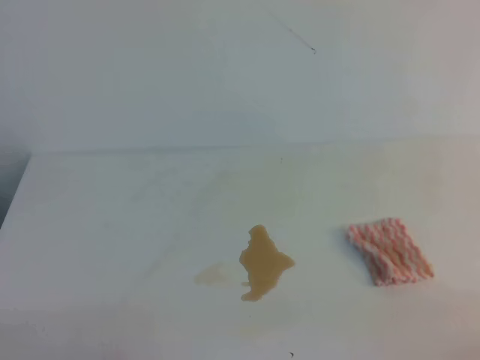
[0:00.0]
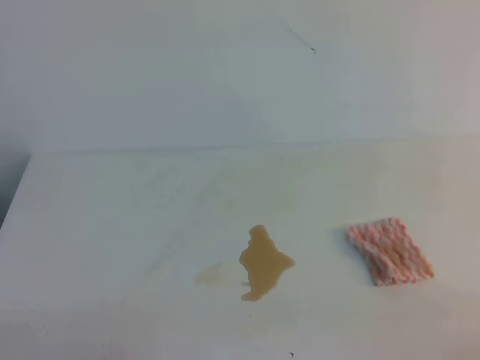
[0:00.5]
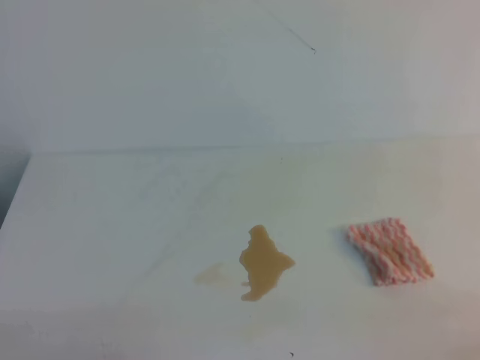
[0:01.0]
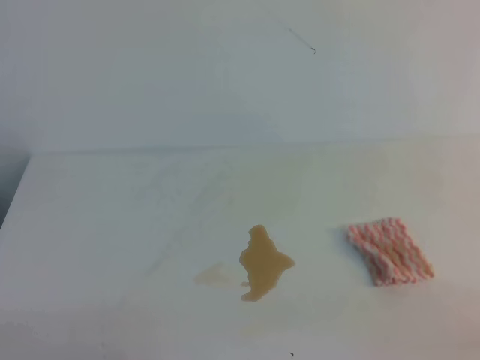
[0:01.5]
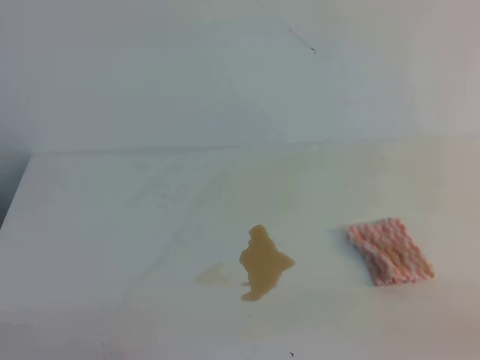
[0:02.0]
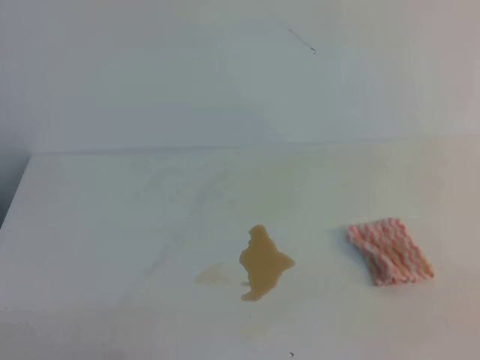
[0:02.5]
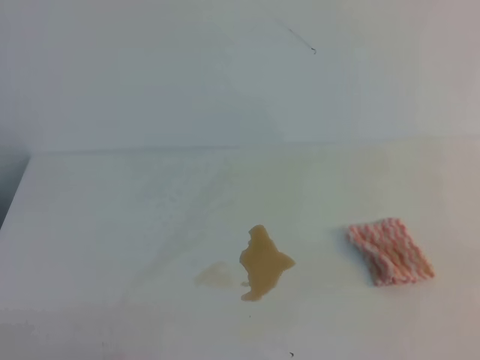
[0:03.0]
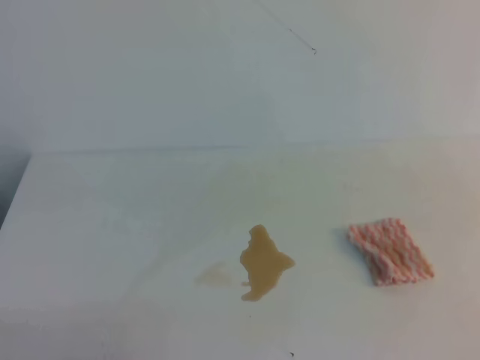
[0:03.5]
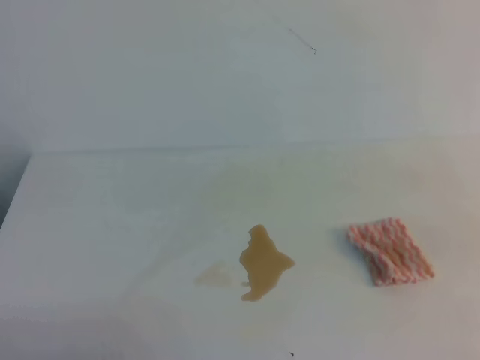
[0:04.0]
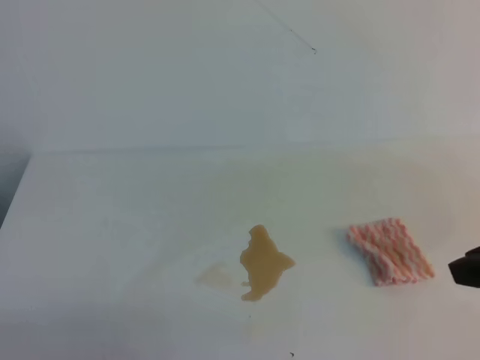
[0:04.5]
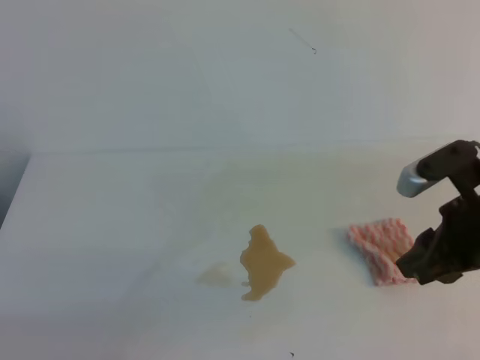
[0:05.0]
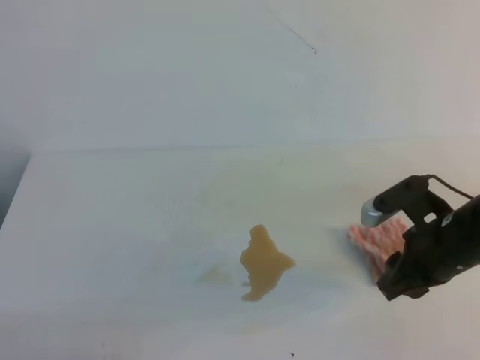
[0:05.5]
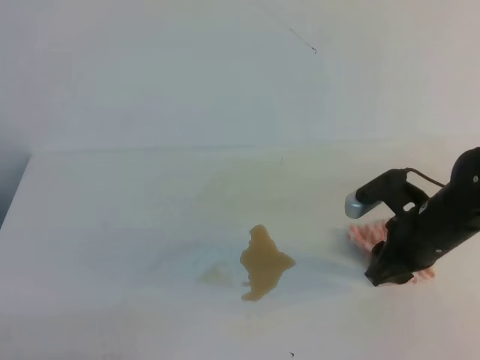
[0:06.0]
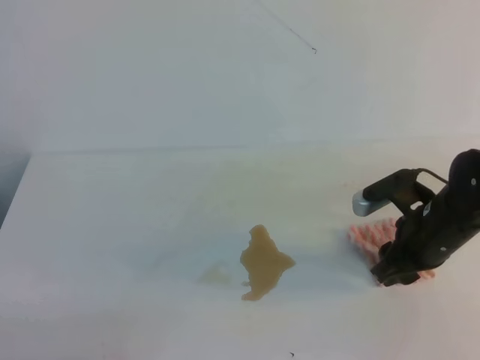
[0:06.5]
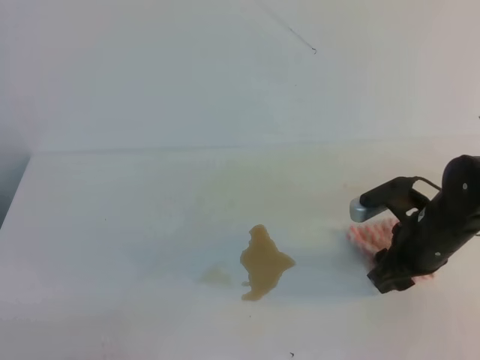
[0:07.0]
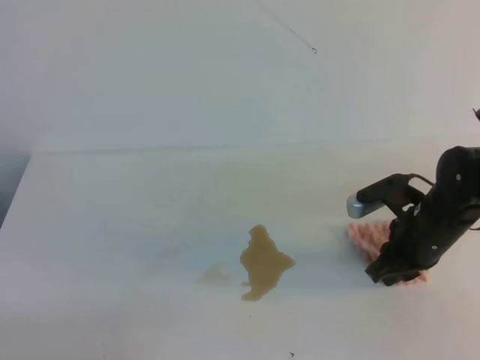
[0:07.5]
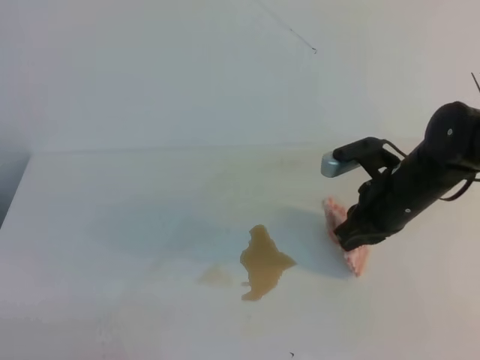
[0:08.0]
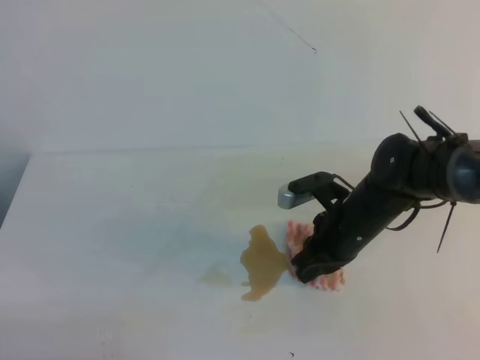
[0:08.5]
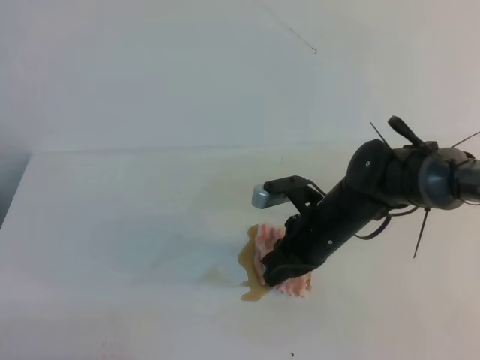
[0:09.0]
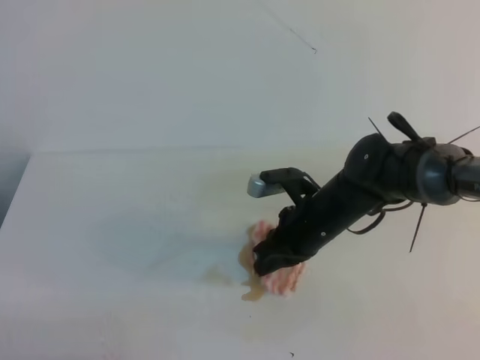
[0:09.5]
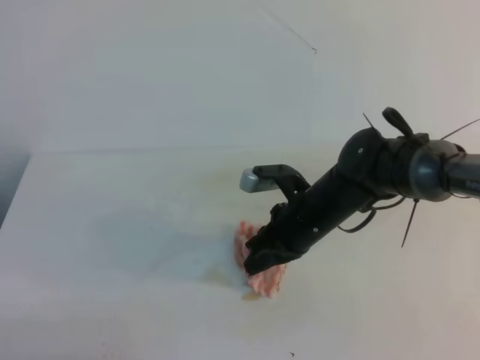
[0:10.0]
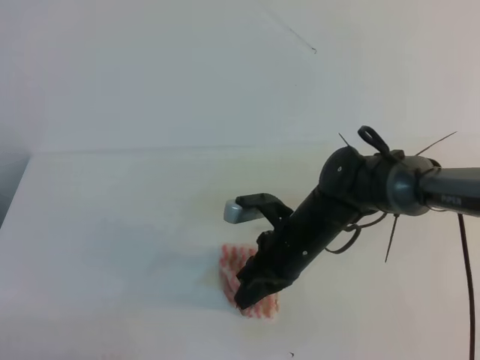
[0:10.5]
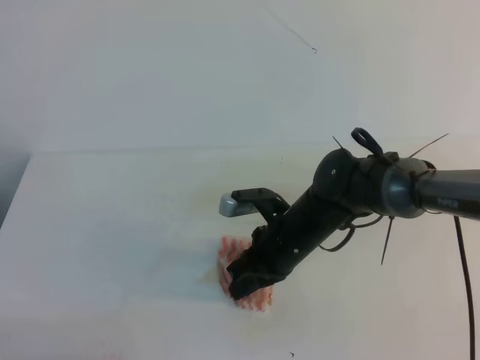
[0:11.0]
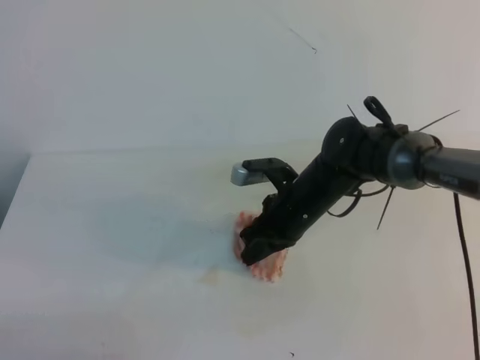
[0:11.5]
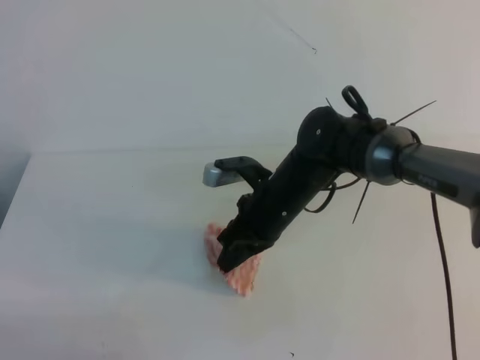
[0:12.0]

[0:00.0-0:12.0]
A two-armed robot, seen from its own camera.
0:04.0 to 0:06.0: The right gripper goes roughly 25 cm forward, downward and to the left, and opens its fingers.
0:06.0 to 0:08.0: The right gripper closes.
0:08.0 to 0:10.0: The right gripper heads to the left, covering approximately 10 cm.
0:10.0 to 0:12.0: There are only small adjustments of the grippers.

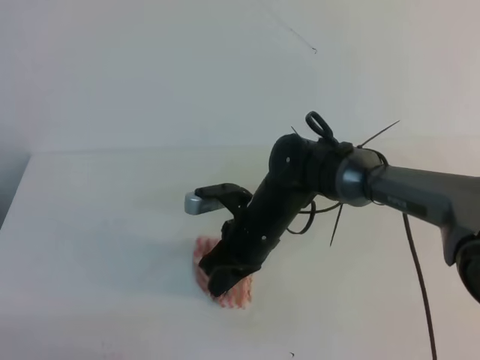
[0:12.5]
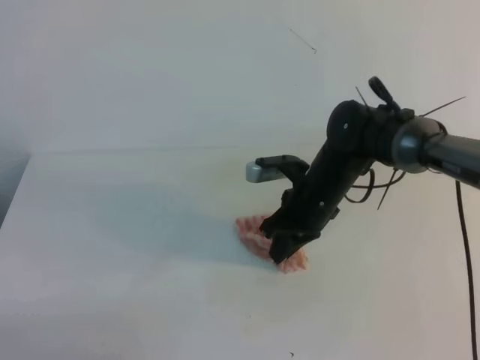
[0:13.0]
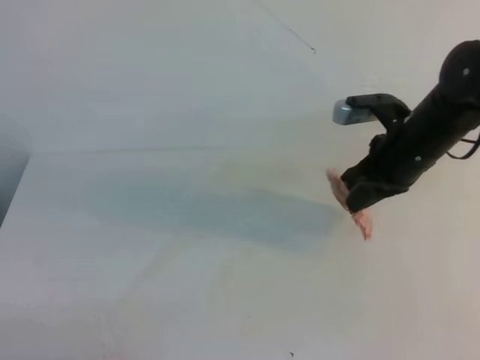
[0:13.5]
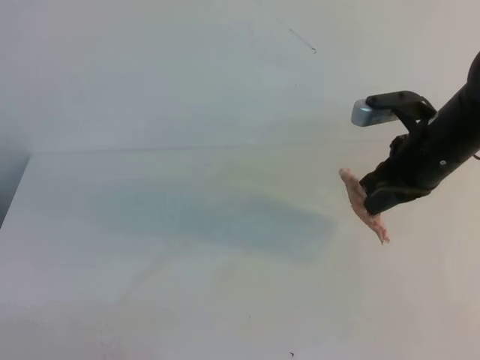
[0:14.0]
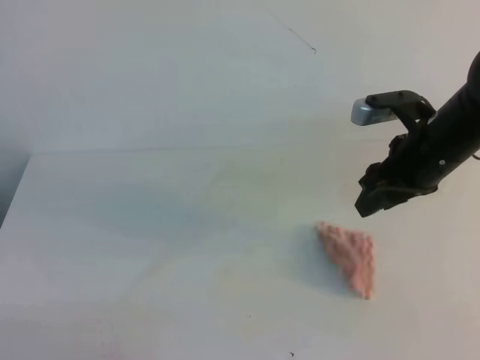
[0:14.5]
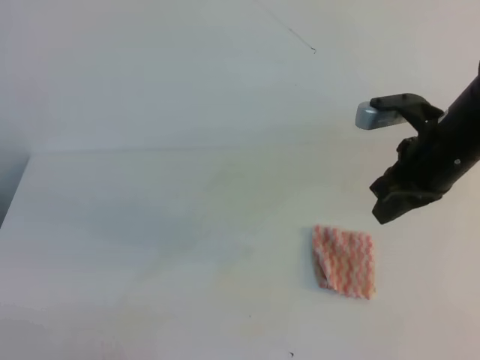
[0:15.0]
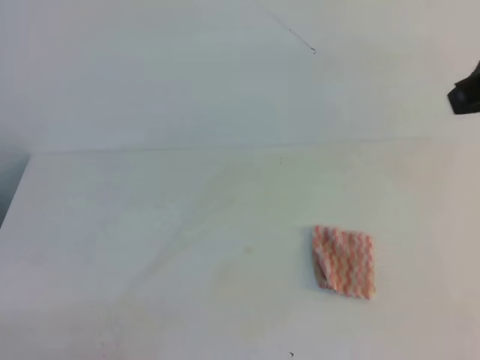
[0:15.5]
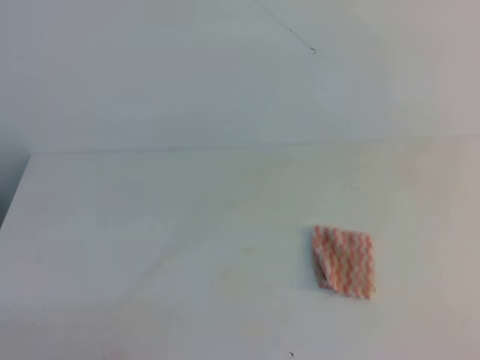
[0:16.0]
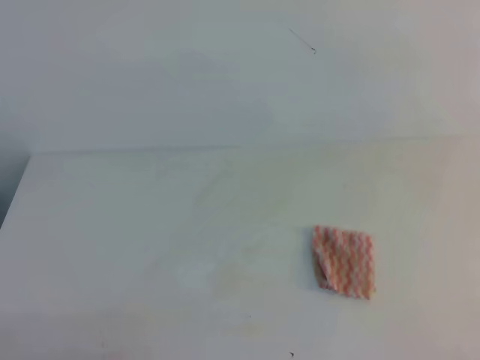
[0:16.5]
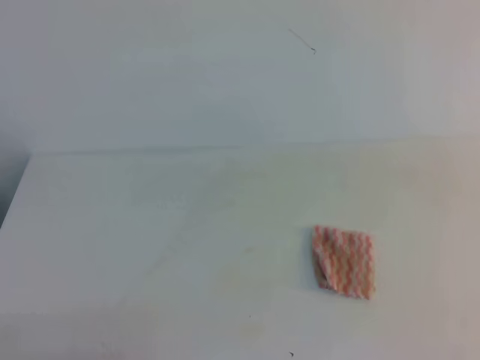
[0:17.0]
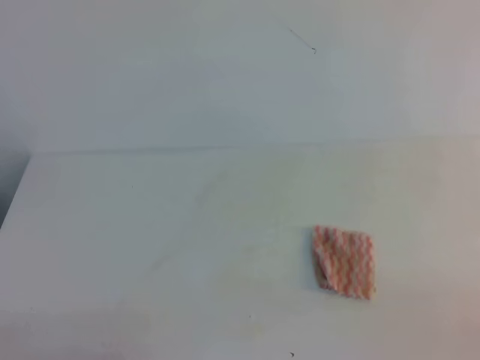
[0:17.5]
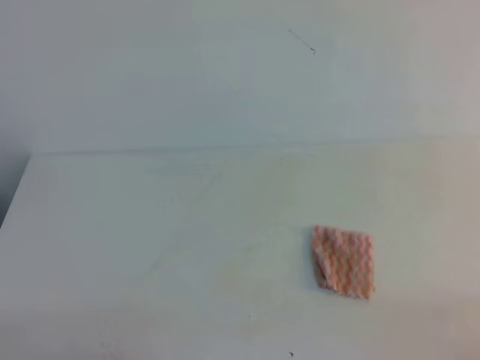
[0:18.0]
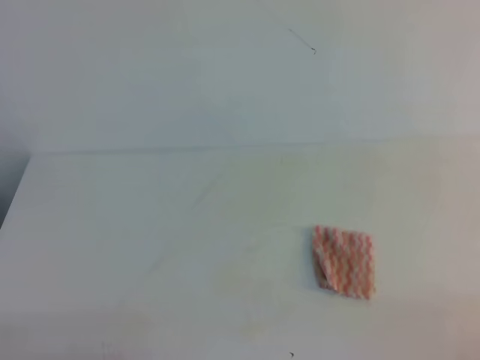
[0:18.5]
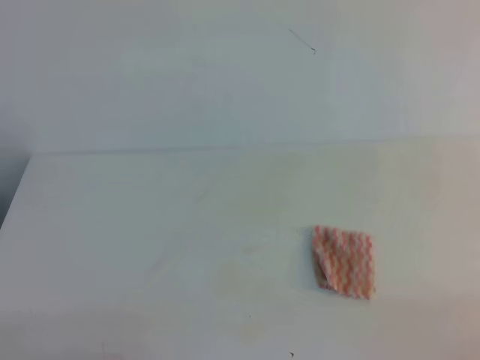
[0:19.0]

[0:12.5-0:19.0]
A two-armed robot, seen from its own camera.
0:12.5 to 0:14.5: The right gripper goes some 20 cm to the right and upward, and opens its fingers.
0:14.5 to 0:17.0: The right gripper is displaced backward and upward by roughly 35 cm, and closes.

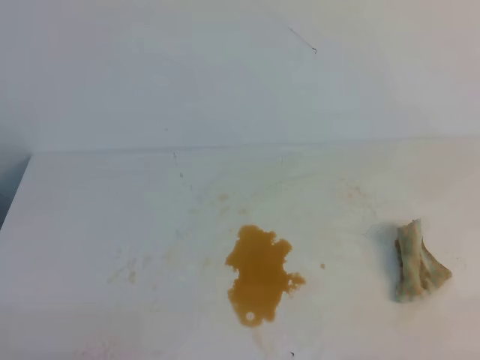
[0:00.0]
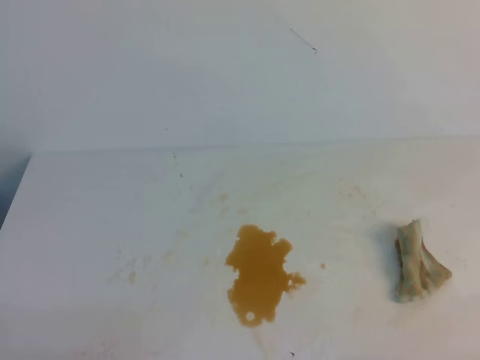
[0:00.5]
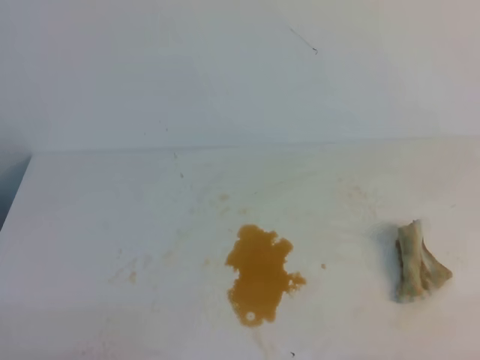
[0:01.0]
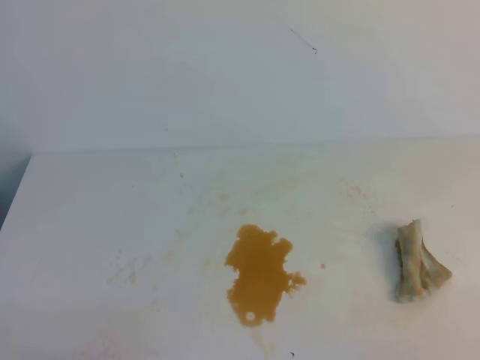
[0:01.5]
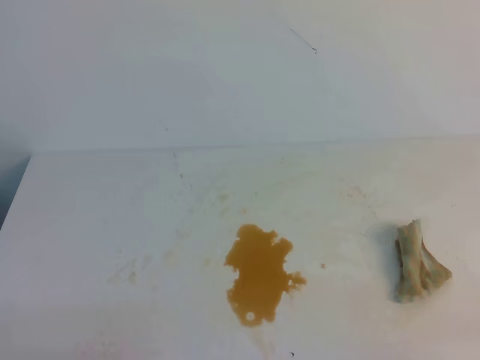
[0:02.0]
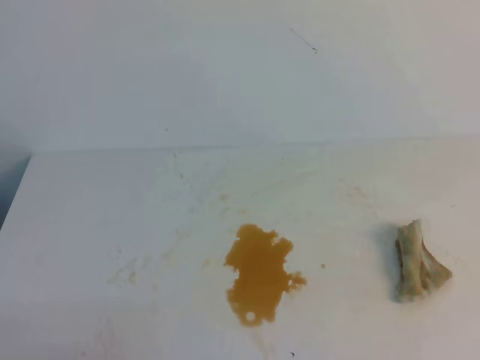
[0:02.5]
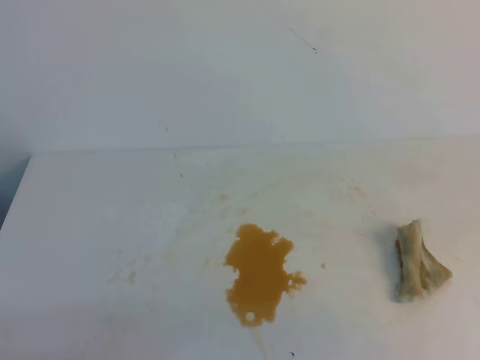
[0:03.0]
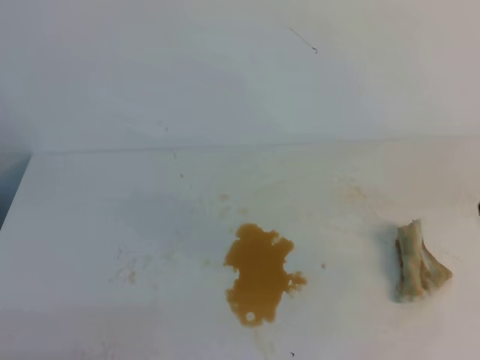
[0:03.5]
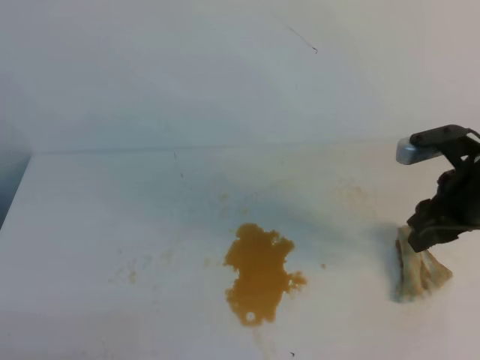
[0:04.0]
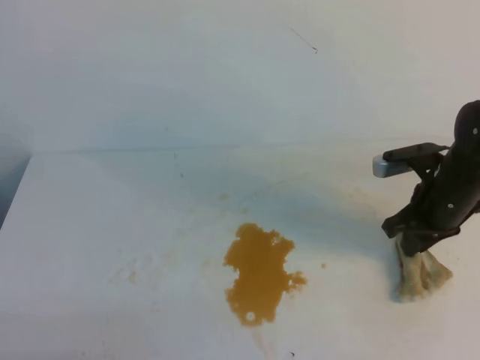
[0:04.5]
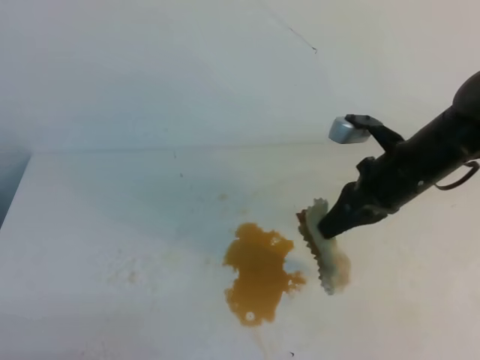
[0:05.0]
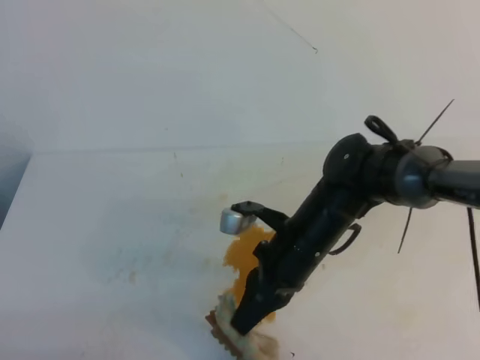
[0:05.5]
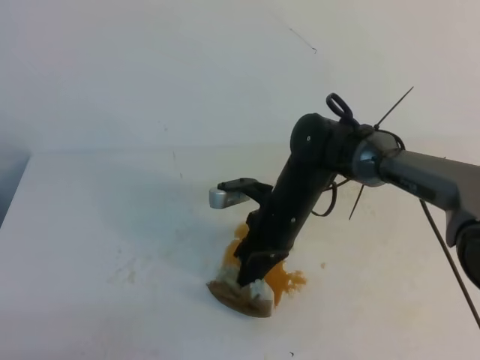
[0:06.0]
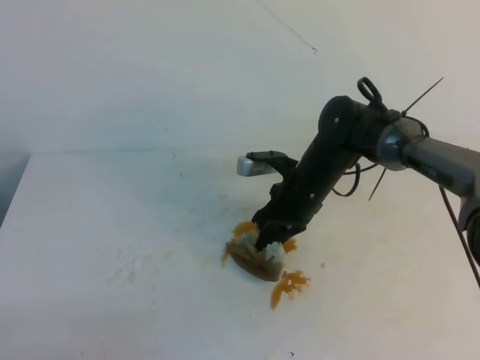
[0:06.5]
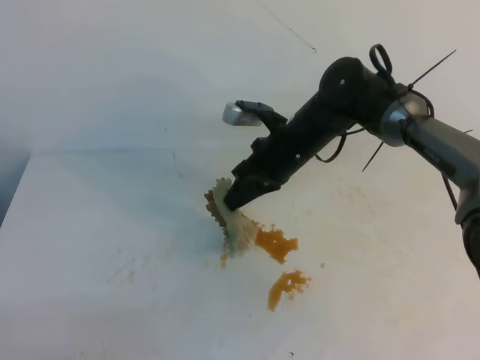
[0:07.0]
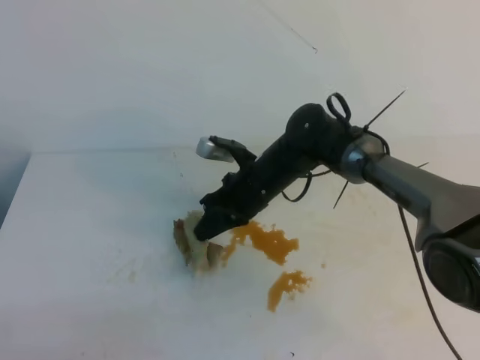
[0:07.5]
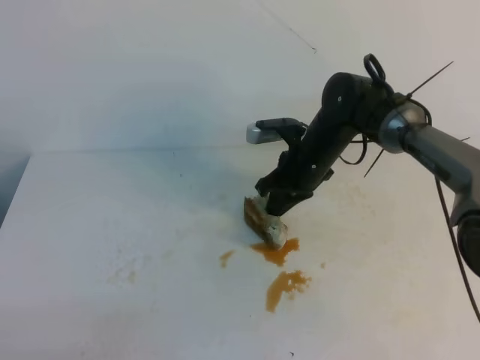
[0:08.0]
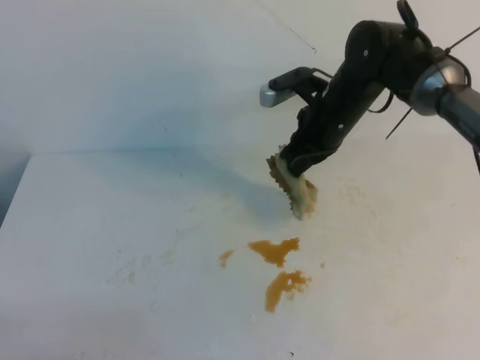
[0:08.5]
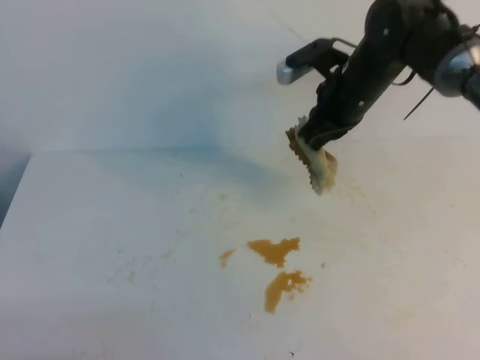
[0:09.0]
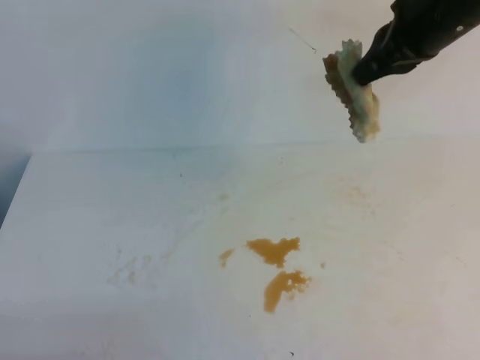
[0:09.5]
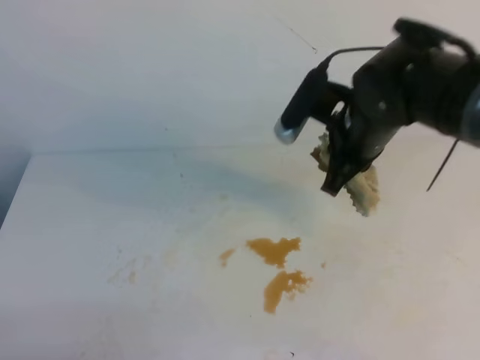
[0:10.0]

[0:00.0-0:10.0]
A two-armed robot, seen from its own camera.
0:02.0 to 0:04.0: The left gripper closes up, while the right gripper moves forward, approximately 30 cm, and opens up.
0:04.0 to 0:06.0: The right gripper goes about 25 cm to the left and downward, and closes up.
0:06.0 to 0:08.0: The right gripper goes roughly 10 cm forward.
0:08.0 to 0:10.0: The right gripper travels upward, backward and to the right by roughly 15 cm.
